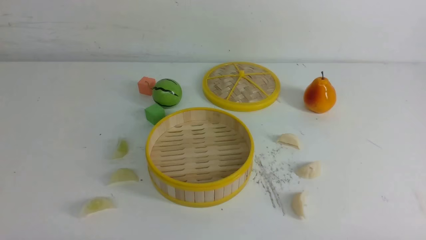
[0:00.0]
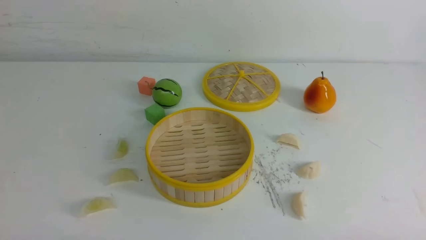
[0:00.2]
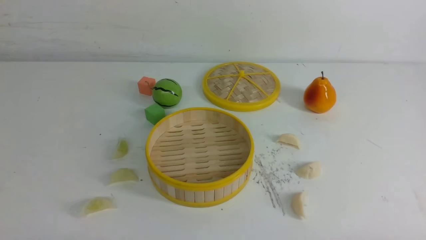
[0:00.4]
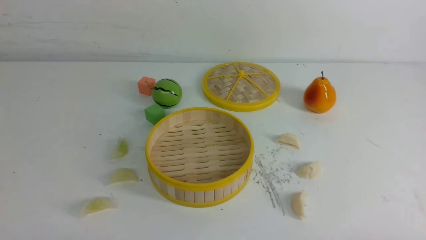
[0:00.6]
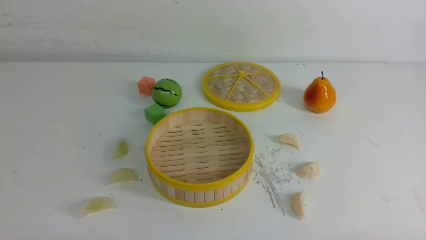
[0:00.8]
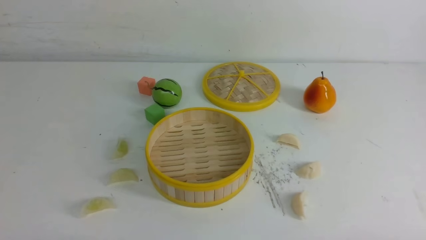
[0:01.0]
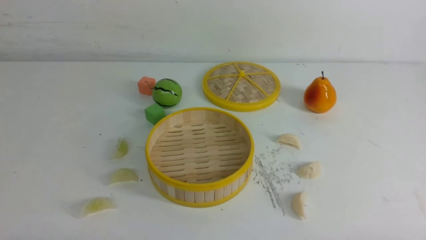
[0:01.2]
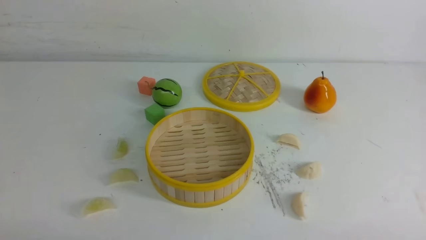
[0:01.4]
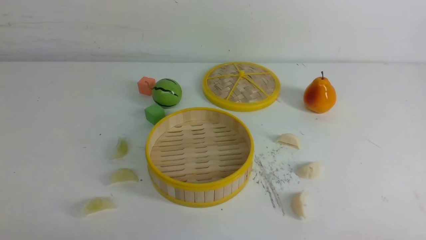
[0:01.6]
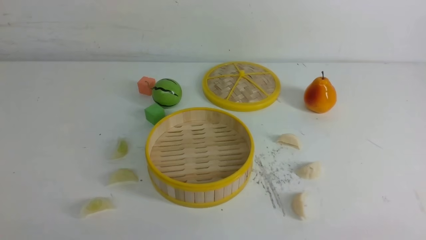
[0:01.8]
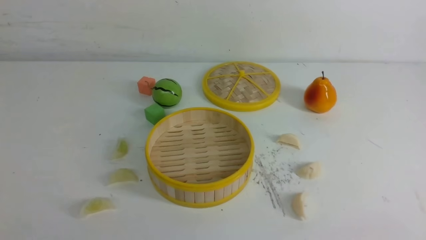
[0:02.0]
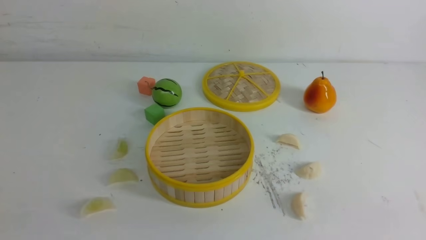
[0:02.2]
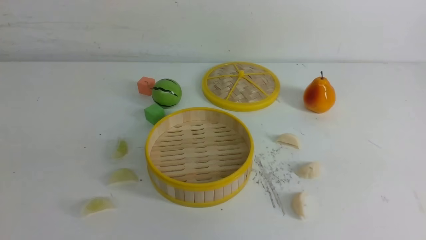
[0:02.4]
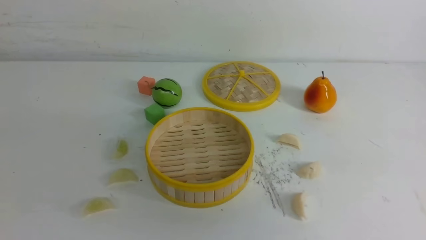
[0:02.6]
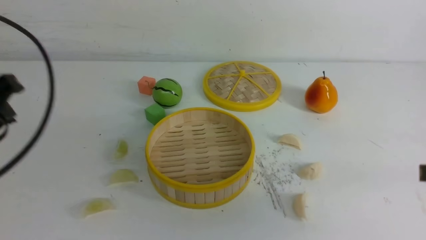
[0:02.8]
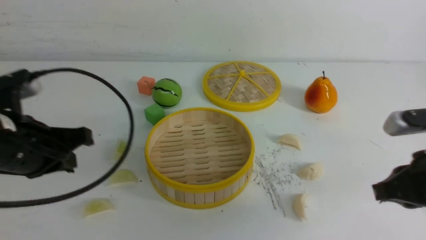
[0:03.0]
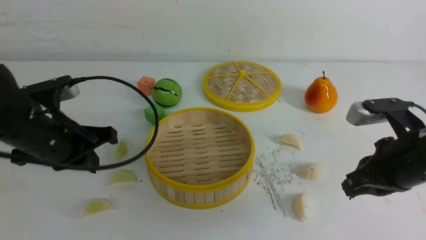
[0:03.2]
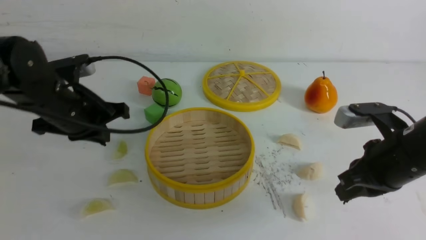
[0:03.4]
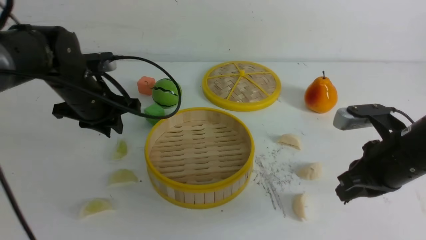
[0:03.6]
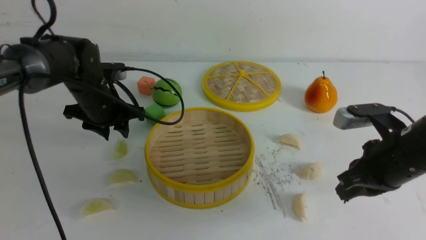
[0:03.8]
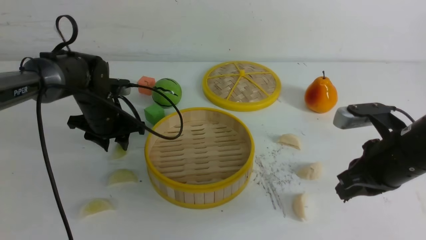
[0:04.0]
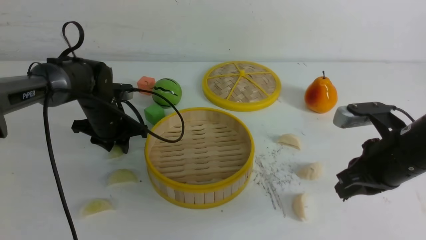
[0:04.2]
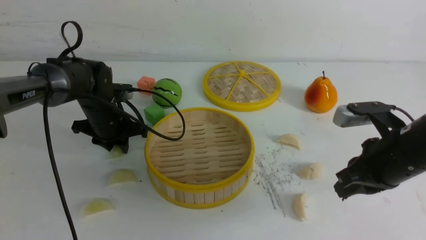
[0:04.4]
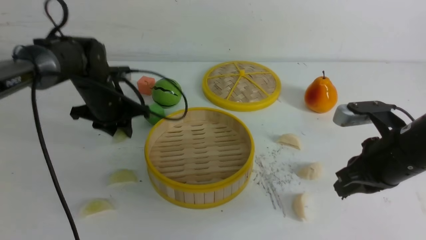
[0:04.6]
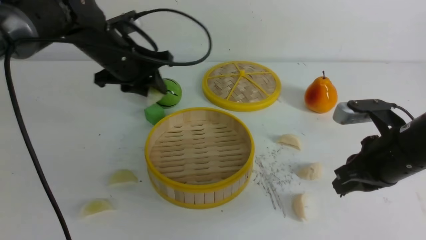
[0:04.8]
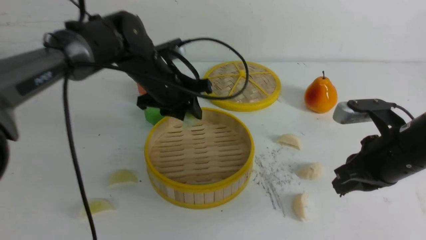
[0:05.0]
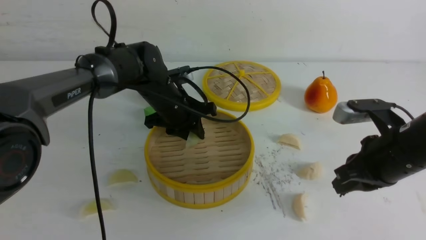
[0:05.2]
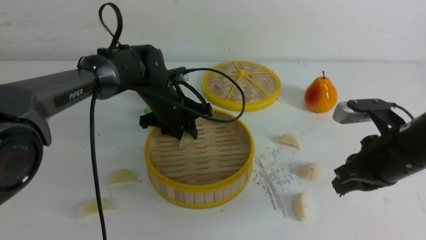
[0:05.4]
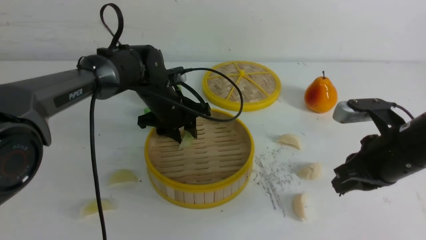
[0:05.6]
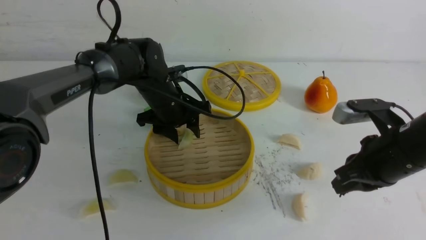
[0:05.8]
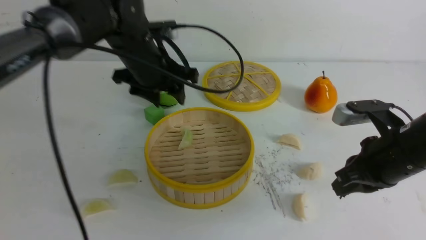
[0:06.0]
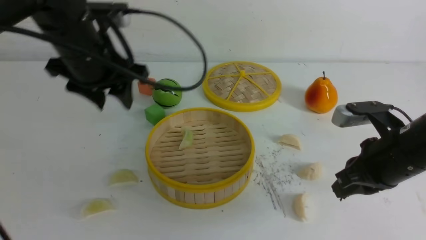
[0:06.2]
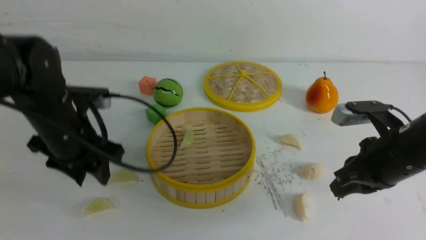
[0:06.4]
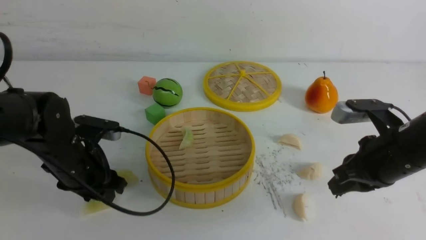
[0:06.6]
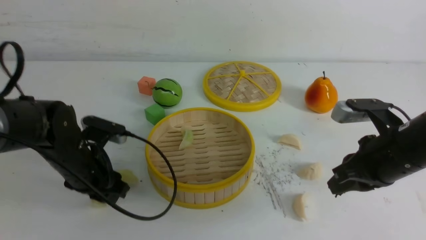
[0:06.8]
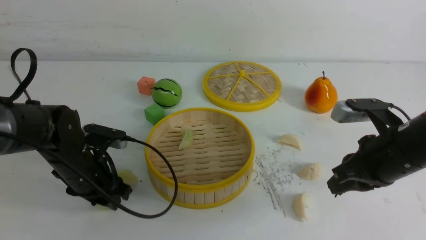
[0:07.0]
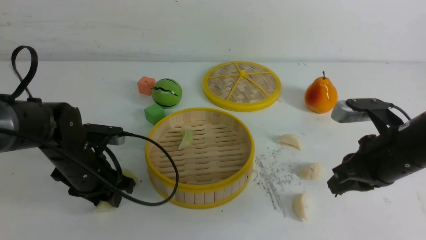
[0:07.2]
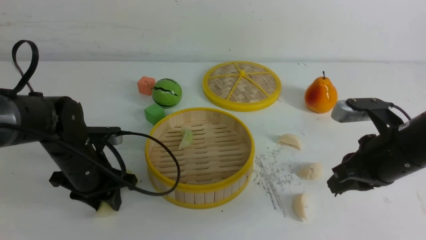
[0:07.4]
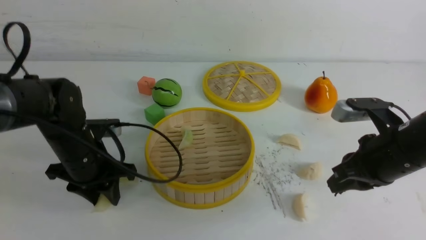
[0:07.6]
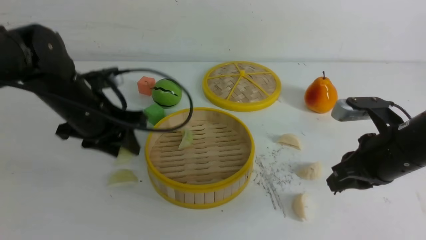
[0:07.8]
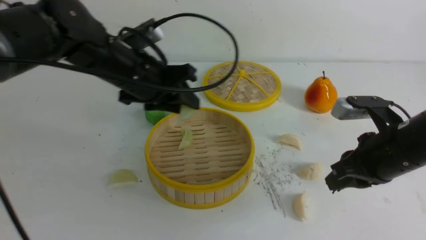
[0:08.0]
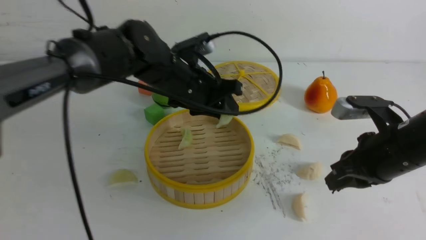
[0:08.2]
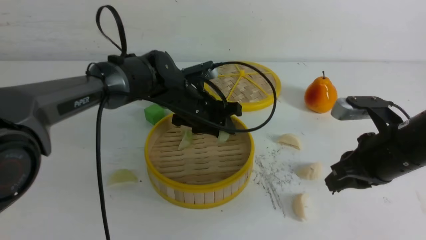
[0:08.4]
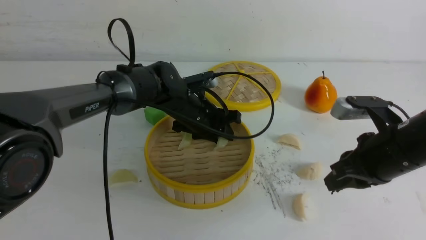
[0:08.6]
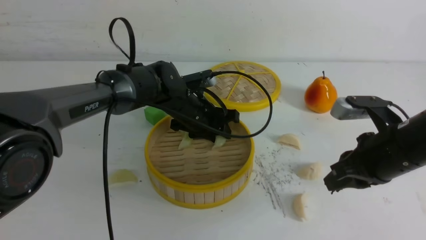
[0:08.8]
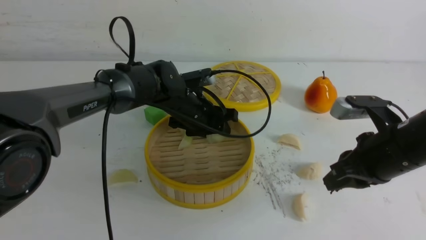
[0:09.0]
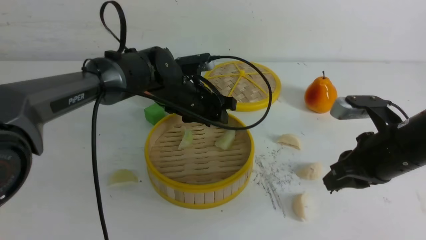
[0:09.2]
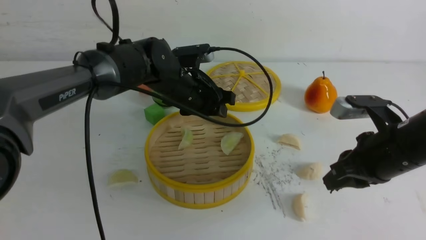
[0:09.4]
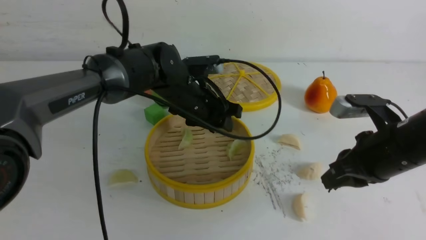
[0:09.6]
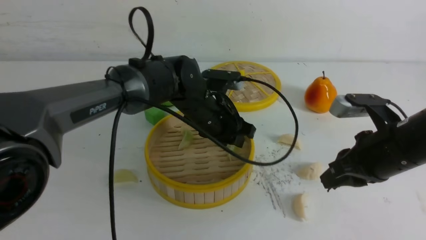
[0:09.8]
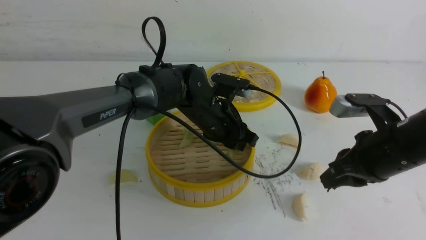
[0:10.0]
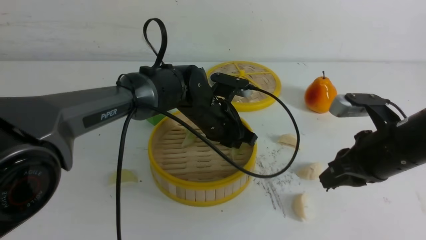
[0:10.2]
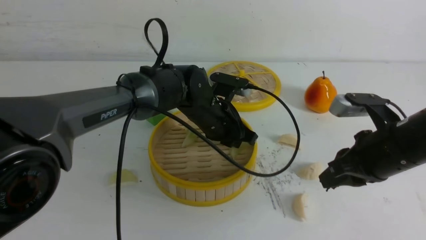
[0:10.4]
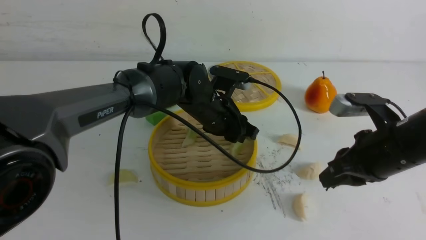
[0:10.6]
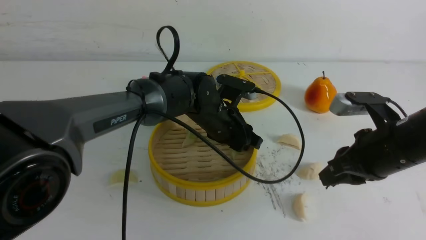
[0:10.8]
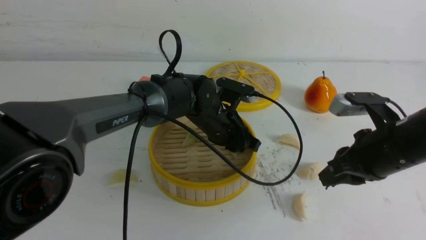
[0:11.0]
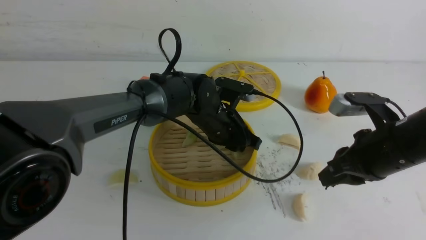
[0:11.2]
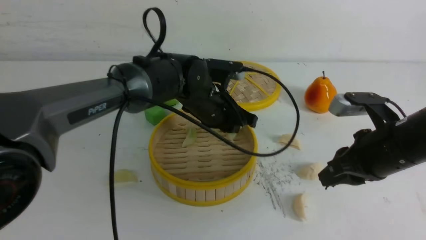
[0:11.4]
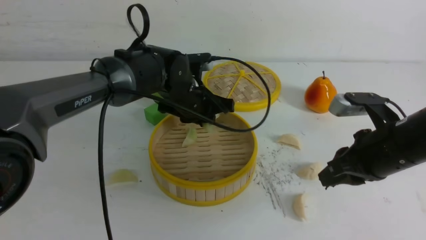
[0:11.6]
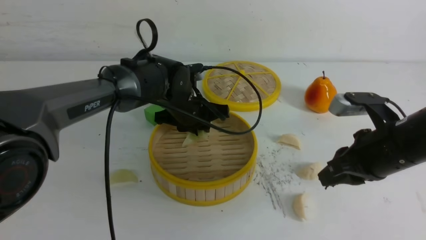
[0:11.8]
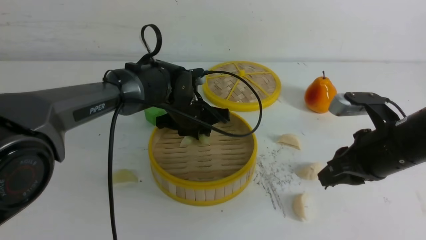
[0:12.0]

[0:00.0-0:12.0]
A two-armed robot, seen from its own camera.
Task of the whole recording: put the dumplings into the steamer on the white table.
Step, 0:00.0 to 0:04.4: use the left arm to grab a dumpling.
Step, 0:04.6 to 0:05.8: use the left arm to put the dumpling into the steamer.
Step, 0:06.0 to 0:07.6: use the left arm to grab a dumpling.
Step, 0:07.8 to 0:09.4: use the left arm to put the dumpling into the steamer.
0:01.6 to 0:03.0: The grippers both shift forward by roughly 20 cm. The right gripper closes up; the left gripper closes.
0:03.0 to 0:04.4: The left gripper is displaced forward and downward by some 20 cm, and opens up. Meanwhile the right gripper heads forward, covering some 5 cm.
0:04.4 to 0:06.0: The left gripper goes up and down, roughly 10 cm each way, reversing 2 times, and opens its fingers.
0:06.0 to 0:07.6: The left gripper shifts about 15 cm downward, backward and to the left.
0:07.6 to 0:09.0: The left gripper moves to the right and forward, approximately 15 cm.
0:09.0 to 0:10.4: The left gripper shifts by approximately 5 cm, and closes its fingers.

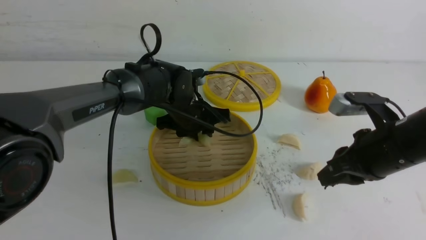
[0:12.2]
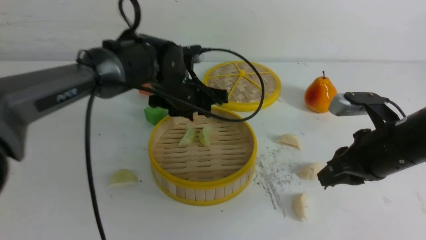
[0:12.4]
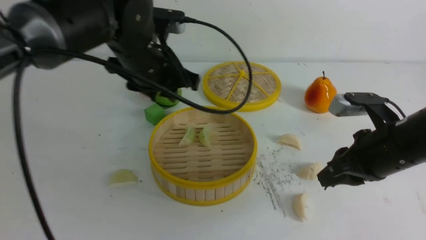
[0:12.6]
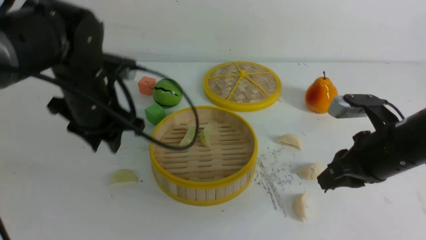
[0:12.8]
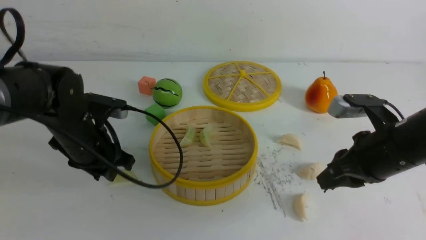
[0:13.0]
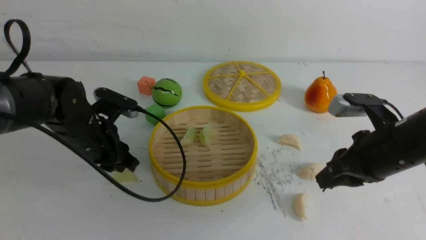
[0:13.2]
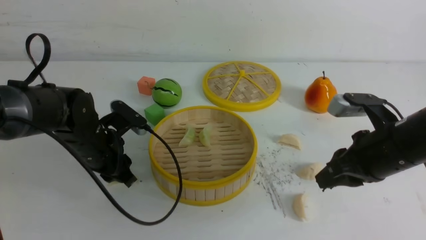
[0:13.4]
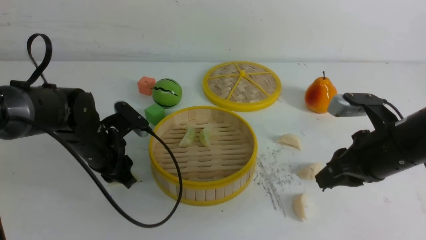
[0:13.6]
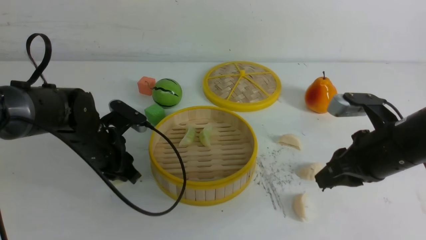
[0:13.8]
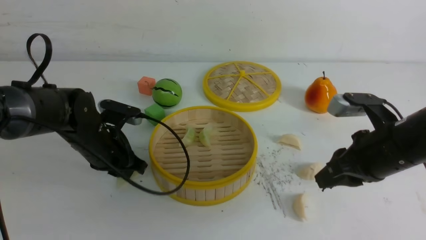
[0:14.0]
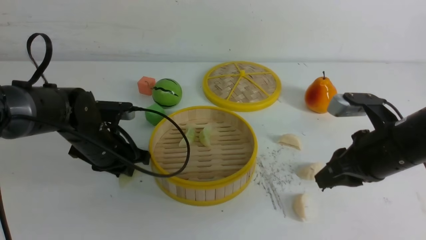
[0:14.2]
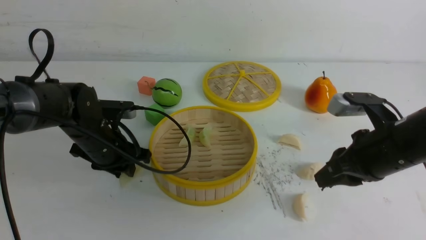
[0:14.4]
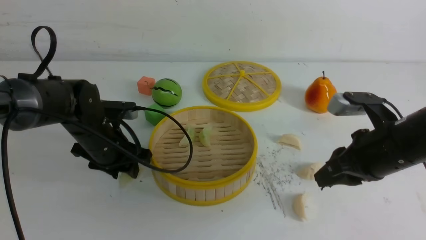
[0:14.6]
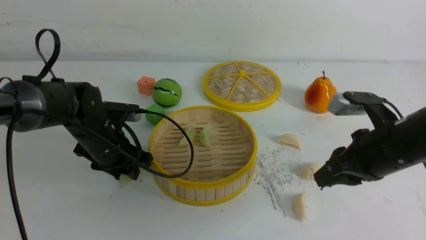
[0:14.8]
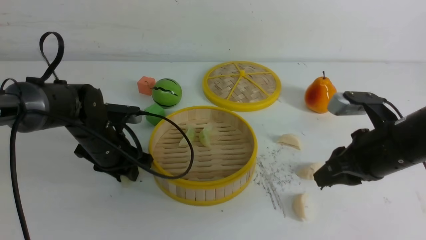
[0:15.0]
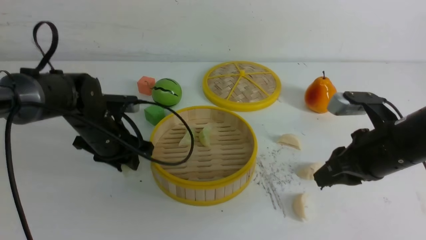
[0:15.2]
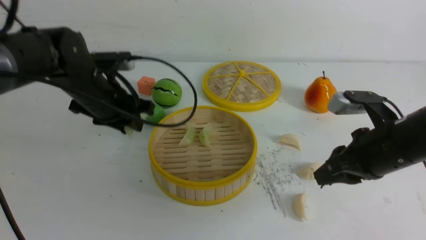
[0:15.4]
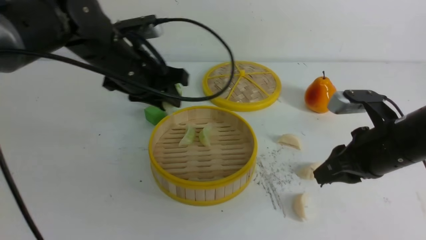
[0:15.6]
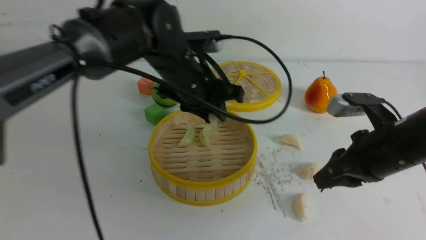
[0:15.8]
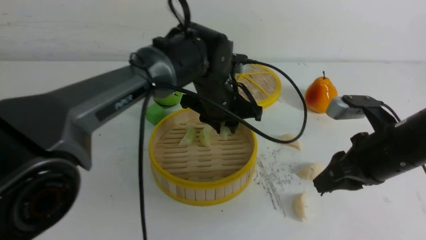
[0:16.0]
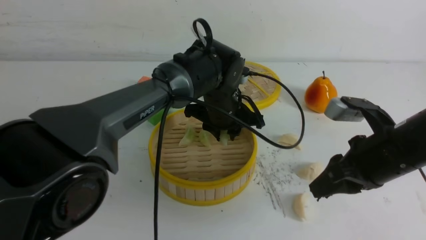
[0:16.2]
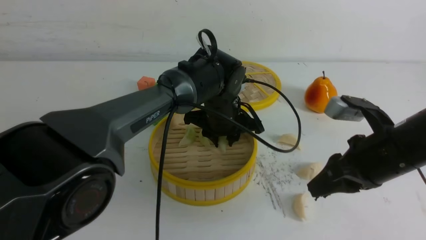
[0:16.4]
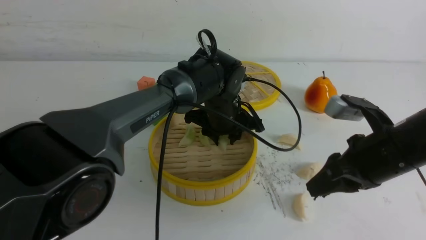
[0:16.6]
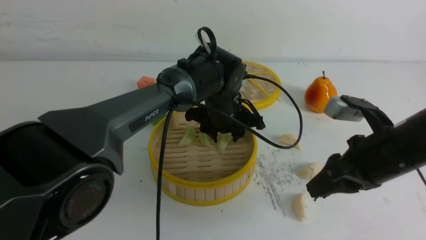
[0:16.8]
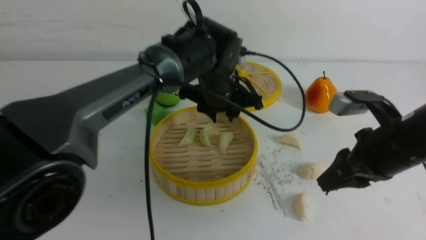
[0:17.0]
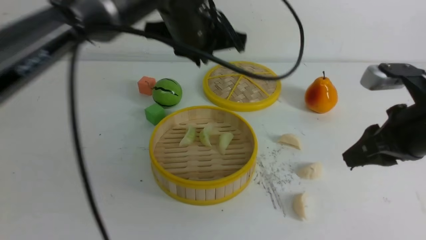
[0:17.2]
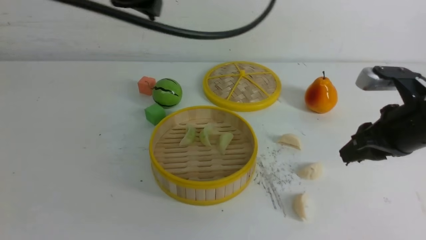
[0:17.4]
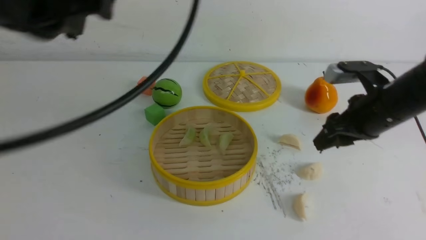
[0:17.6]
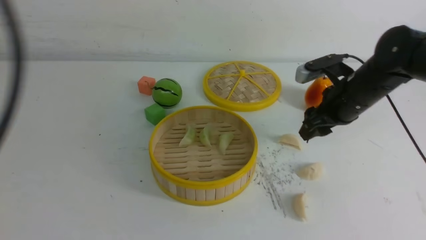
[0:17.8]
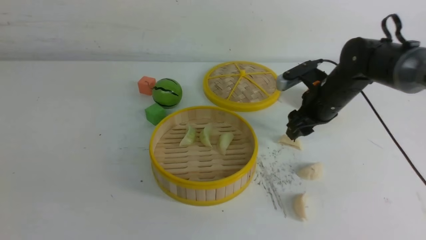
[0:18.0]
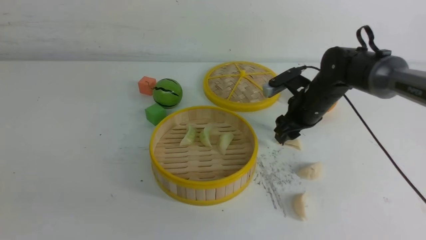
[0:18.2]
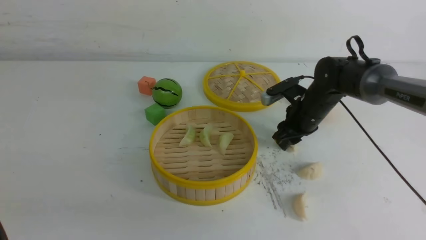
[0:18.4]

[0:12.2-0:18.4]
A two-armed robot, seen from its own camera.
Task of the whole recording: put the dumplings into the steamer on the white table.
Step, 0:12.2 to 0:15.2: use the left arm to grab a dumpling.
Step, 0:15.4 to 0:17.0: use the left arm to put the dumpling into the steamer.
0:12.2 to 0:13.8: The left gripper is displaced to the left and backward by approximately 15 cm.
0:13.8 to 0:15.4: The left gripper heads upward, covering roughly 10 cm.
0:15.4 to 0:16.8: The left gripper is displaced to the right by approximately 15 cm.
0:16.8 to 0:18.4: The right gripper goes about 20 cm forward and downward. Meanwhile the left gripper moves backward and to the left, about 40 cm, and closes its fingers.
